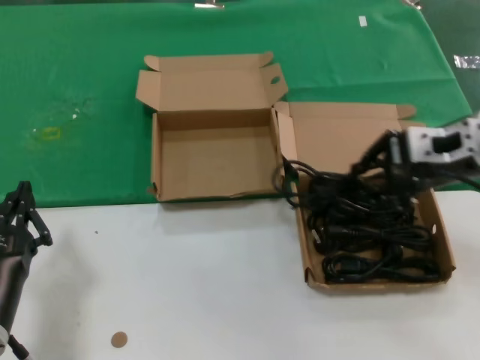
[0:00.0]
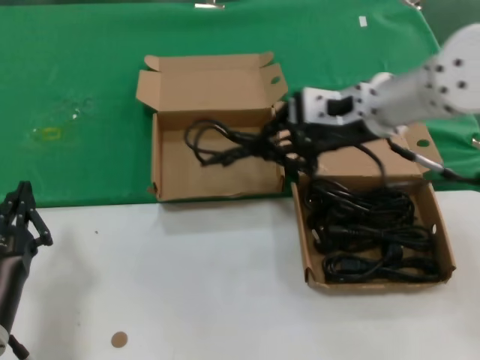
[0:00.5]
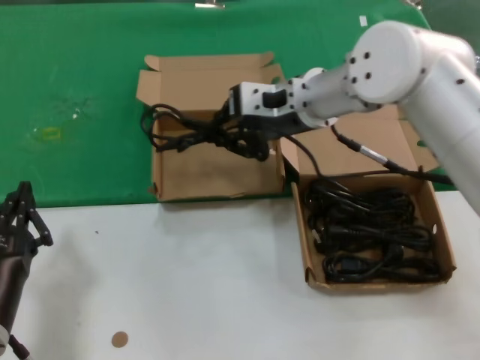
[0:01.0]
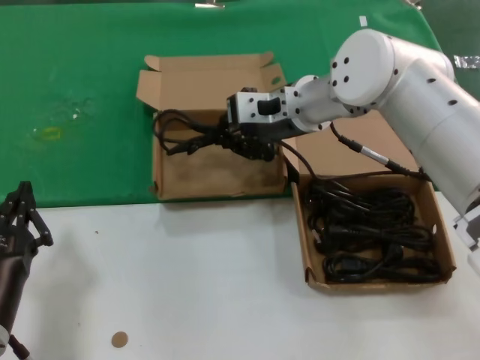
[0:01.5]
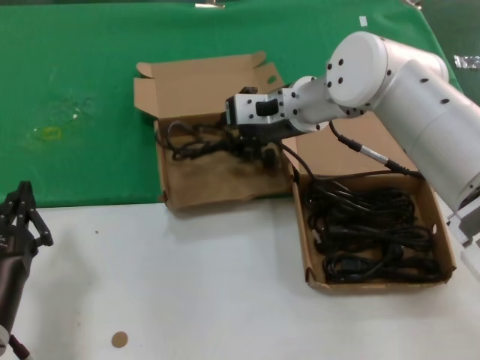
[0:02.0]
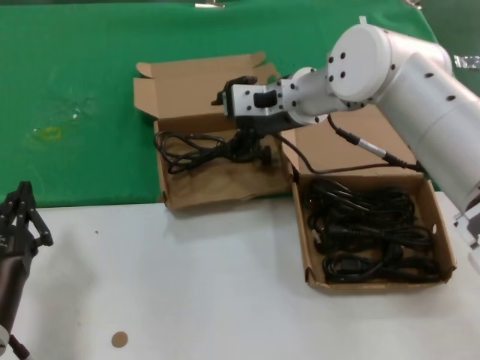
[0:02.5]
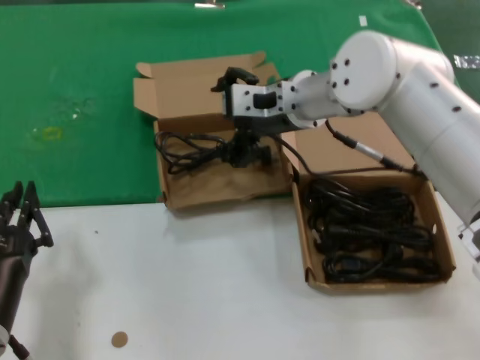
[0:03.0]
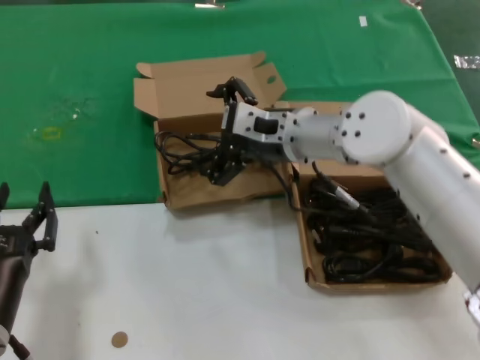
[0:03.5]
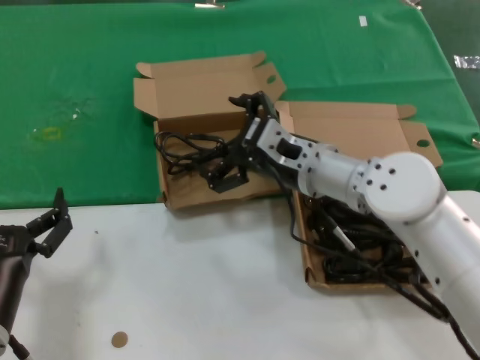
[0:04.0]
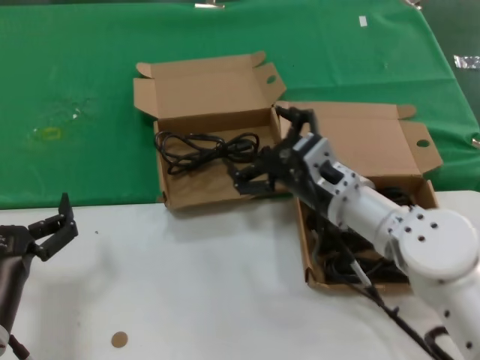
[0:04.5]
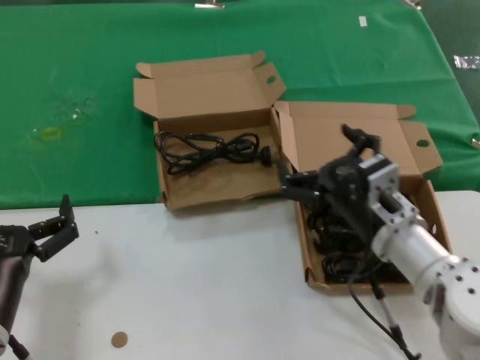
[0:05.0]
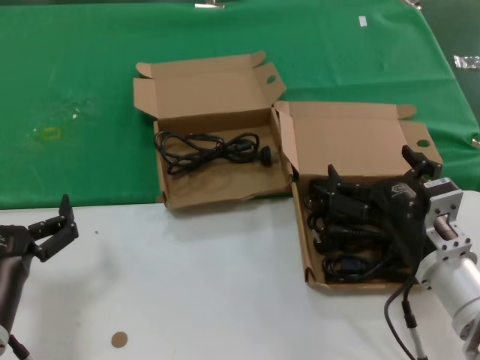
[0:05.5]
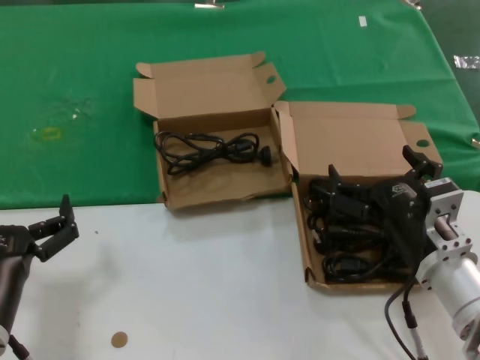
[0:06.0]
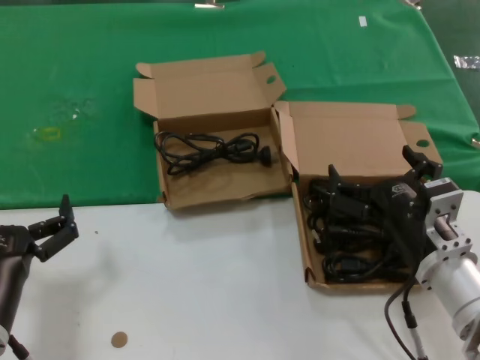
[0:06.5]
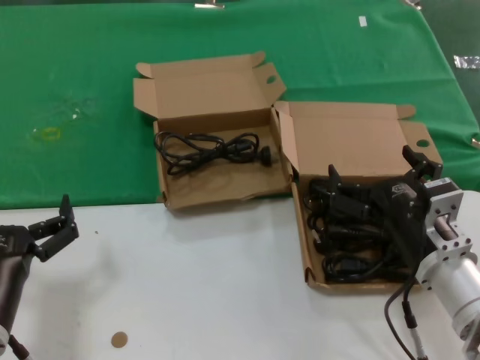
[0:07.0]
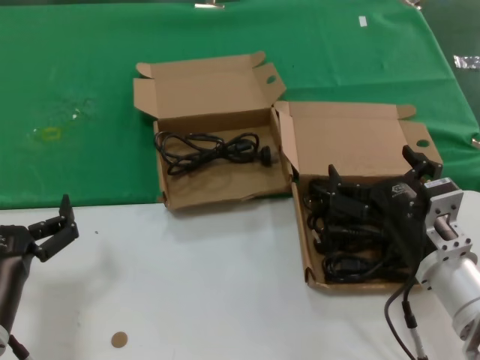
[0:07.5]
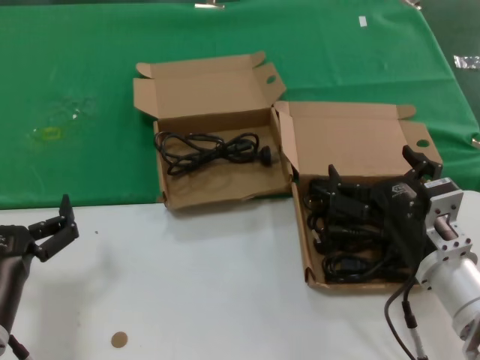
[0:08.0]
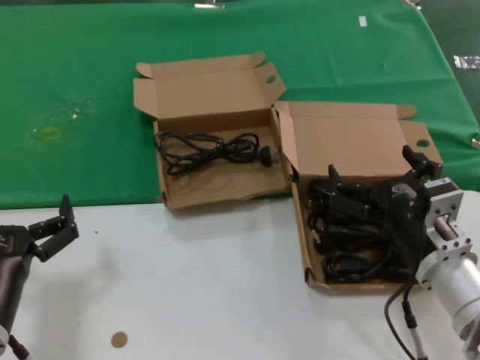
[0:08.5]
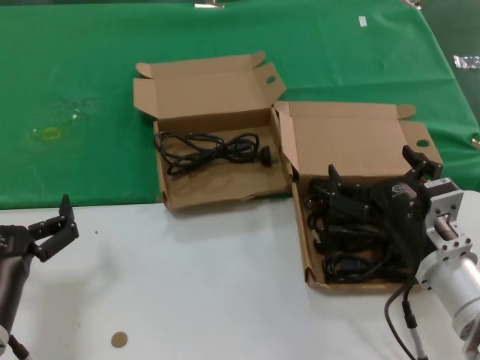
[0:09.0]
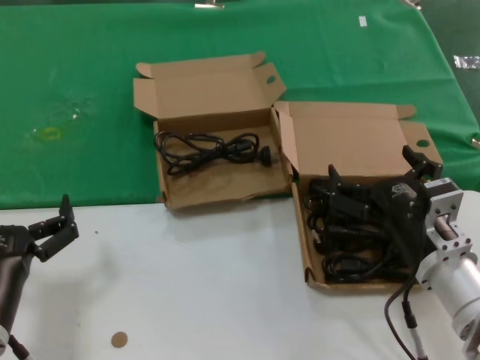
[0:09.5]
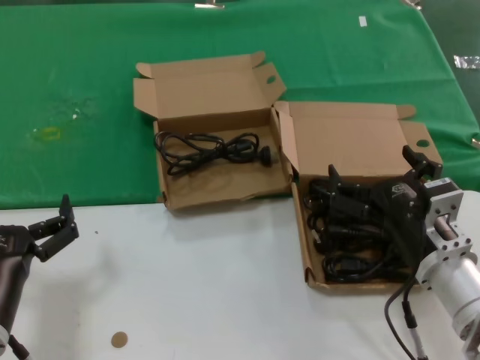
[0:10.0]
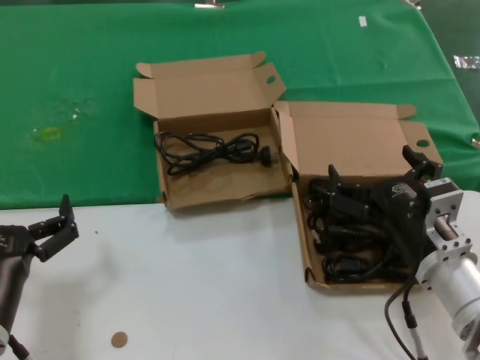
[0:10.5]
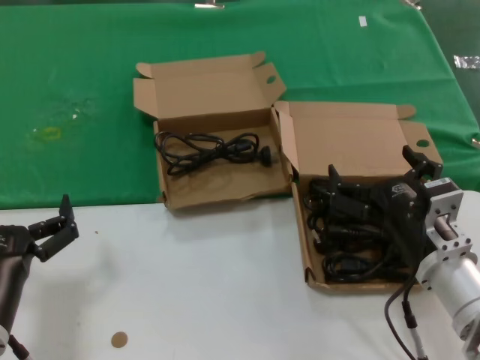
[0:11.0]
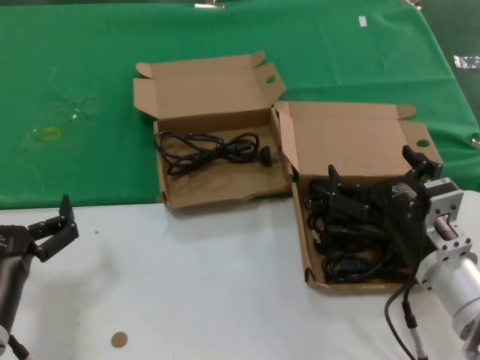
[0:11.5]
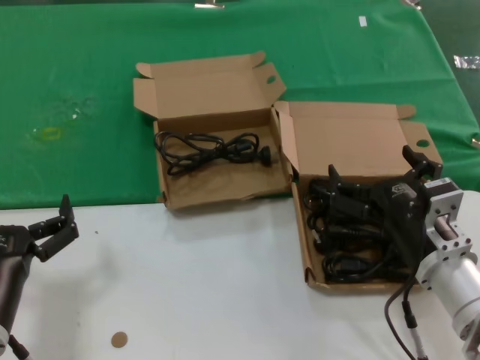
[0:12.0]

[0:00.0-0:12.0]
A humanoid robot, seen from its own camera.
Task of the whole recording: take the parts from the box containing them and put them into an empty box.
Step, 0:00.0 to 0:02.5: Place the data cable in the another box.
0:00.0 to 0:02.0: The right hand travels to the left and forward by some 25 cm.
0:02.0 to 0:04.0: The right hand heads downward and backward, covering approximately 10 cm.
0:04.0 to 0:06.0: The right hand travels backward, to the right and downward by about 20 cm.
0:06.0 to 0:12.0: Neither hand changes place.

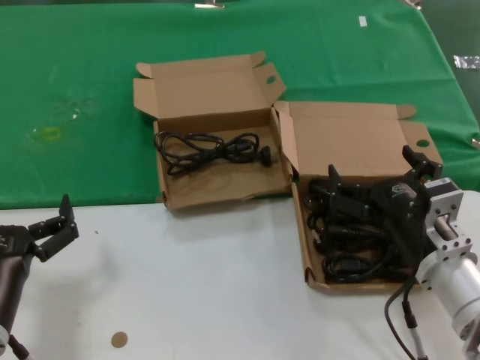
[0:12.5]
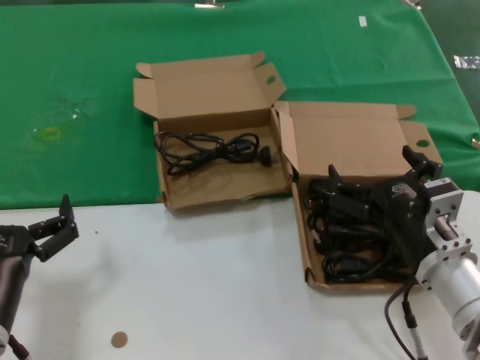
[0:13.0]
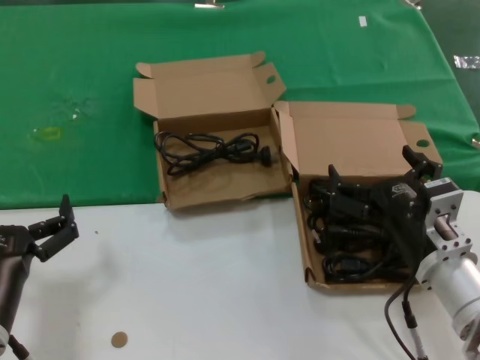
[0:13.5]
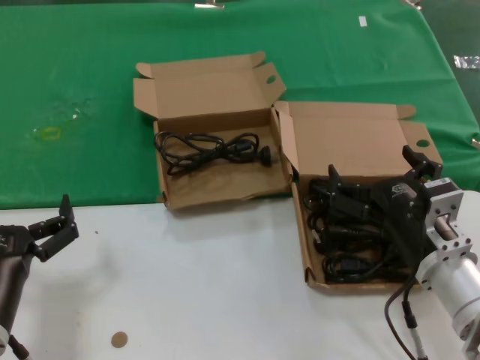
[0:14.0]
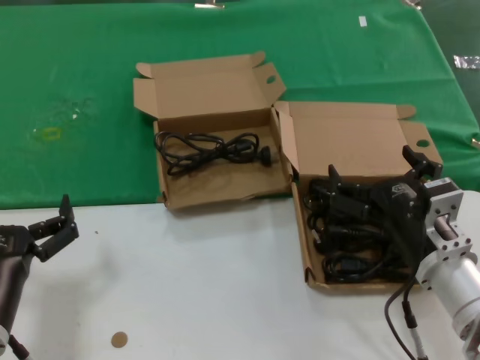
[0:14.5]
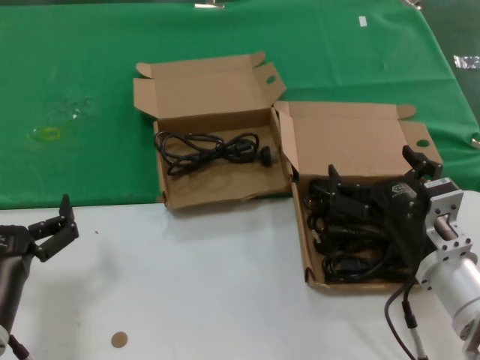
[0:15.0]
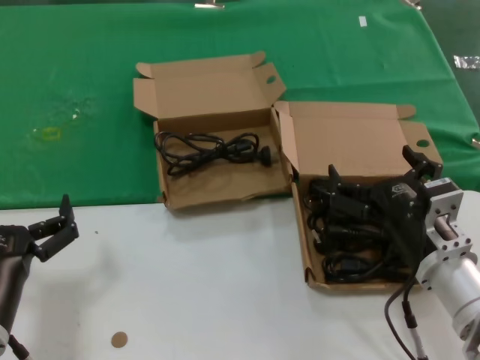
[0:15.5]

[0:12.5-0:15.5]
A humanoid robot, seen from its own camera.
Task of the whole recording: take the parts from the box containing them and put them into an empty box.
0:12.5 to 0:15.5: Both hands stay about where they are.

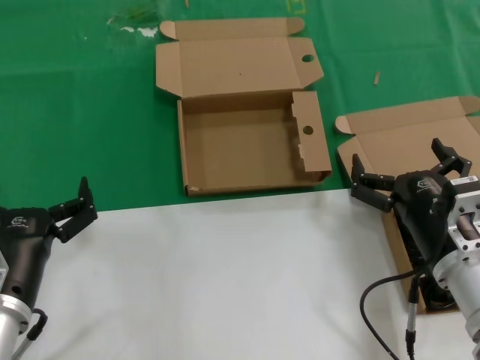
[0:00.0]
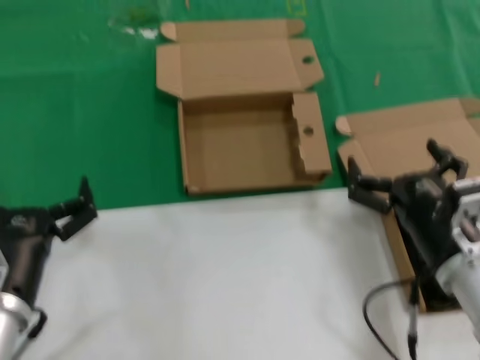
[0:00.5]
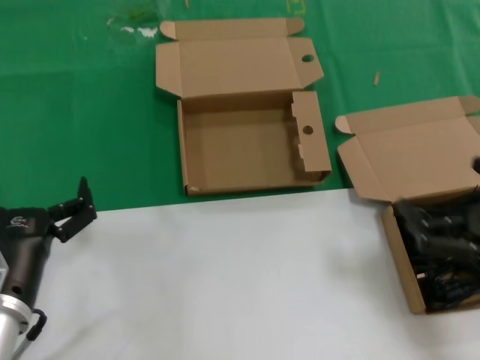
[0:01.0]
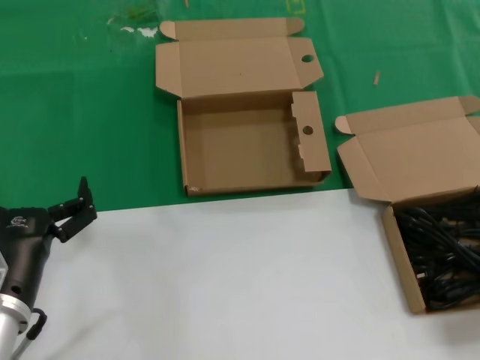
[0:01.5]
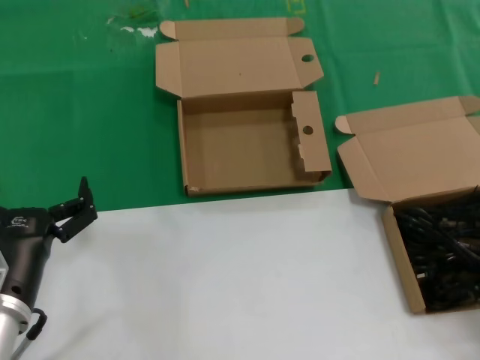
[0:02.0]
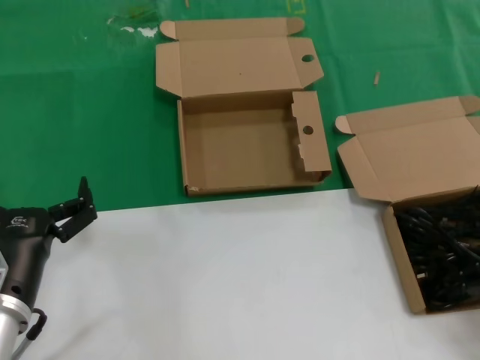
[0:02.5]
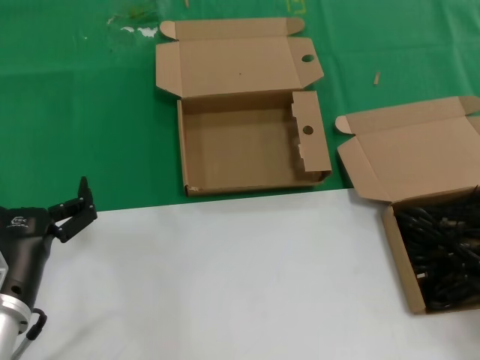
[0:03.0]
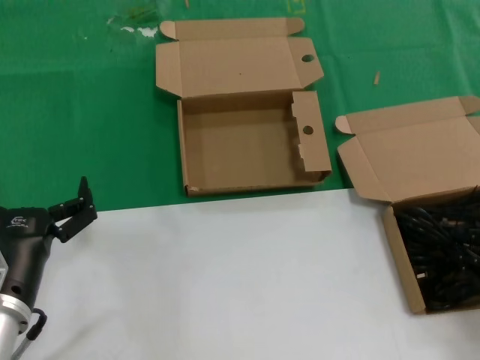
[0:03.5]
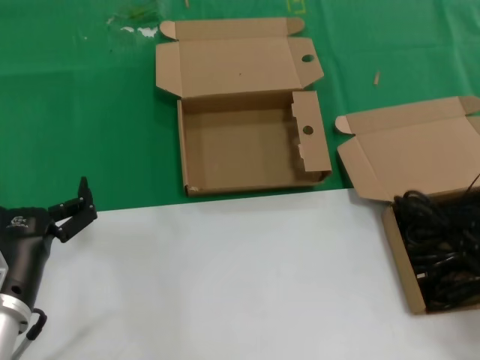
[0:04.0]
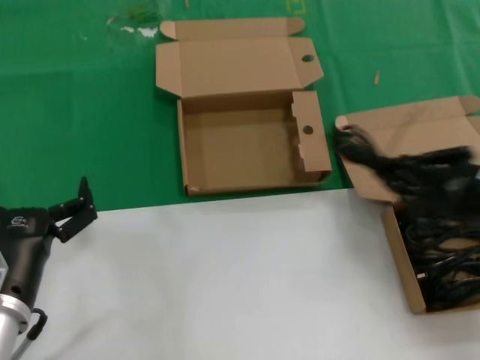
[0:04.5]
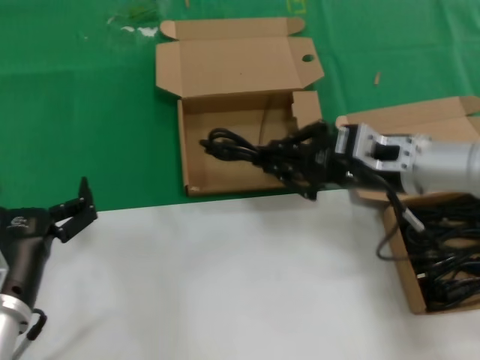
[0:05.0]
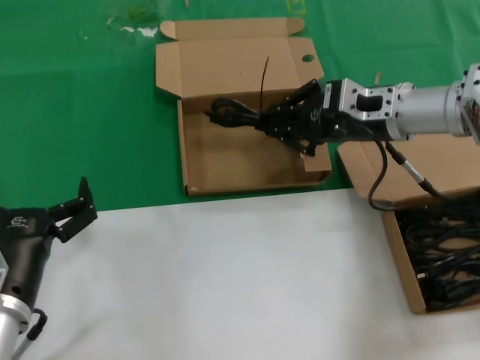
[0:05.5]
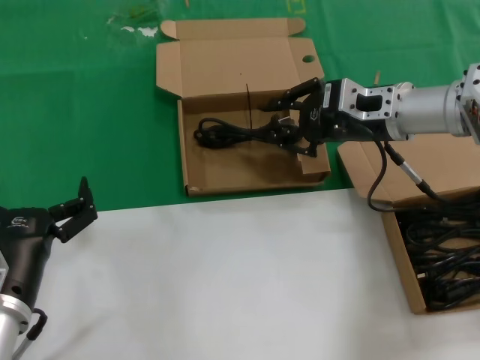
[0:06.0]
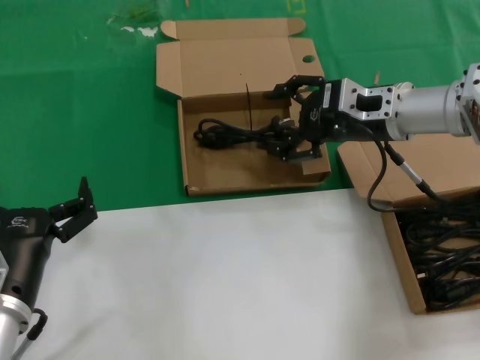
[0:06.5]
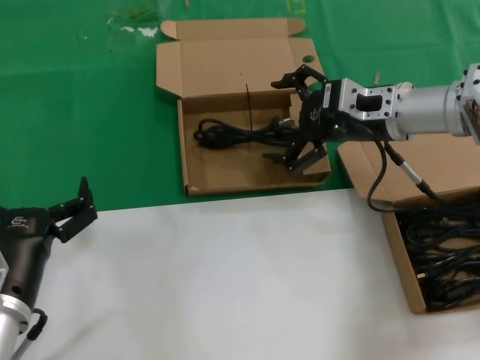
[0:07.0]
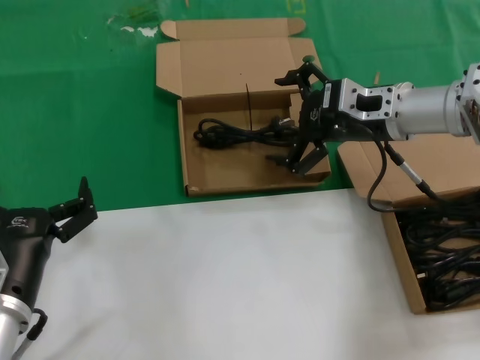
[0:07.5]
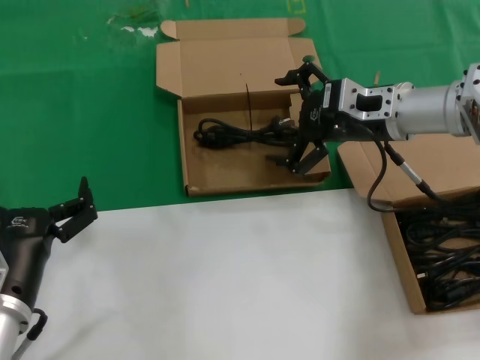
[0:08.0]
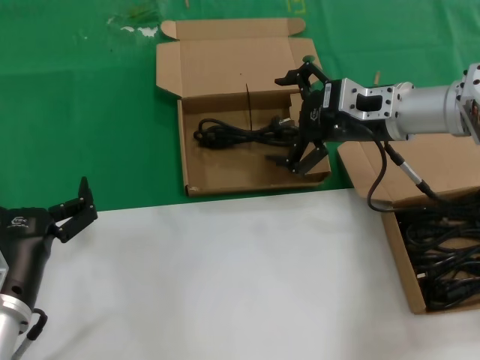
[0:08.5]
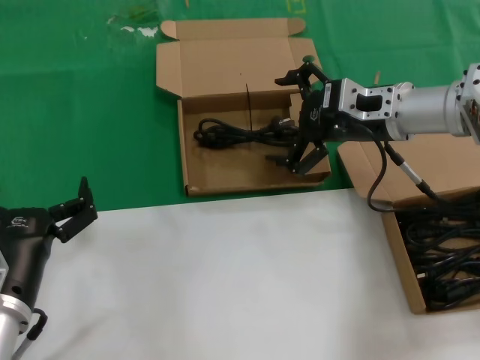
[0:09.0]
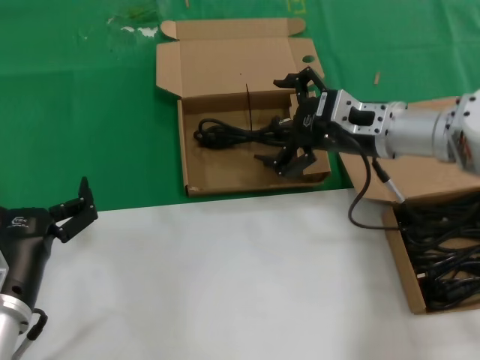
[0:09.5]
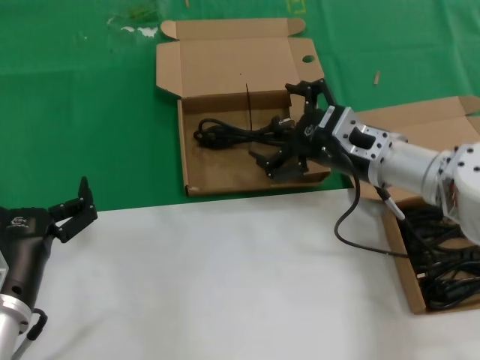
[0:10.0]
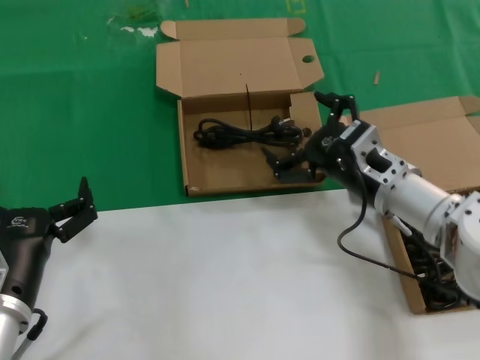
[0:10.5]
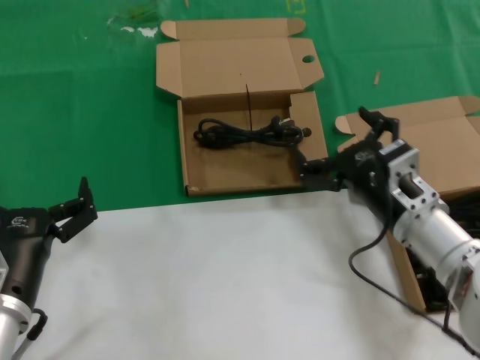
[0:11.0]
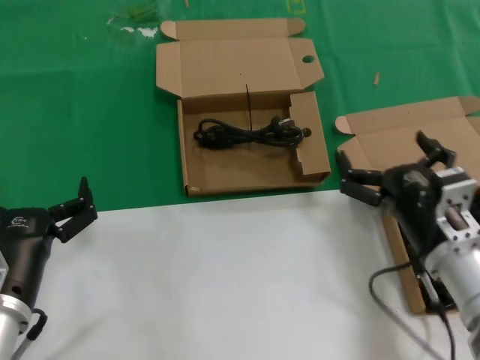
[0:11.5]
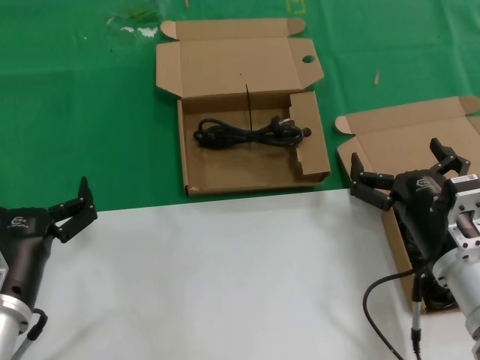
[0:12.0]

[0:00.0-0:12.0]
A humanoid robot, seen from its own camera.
Task of the whole recording: take the parts from the box containing them and put them into an empty box.
Step, 0:00.0 to 0:03.5: Grasp the data cable.
Step, 0:04.5 to 0:07.5: Place the data cable in the another box.
0:00.0 to 0:02.0: The right hand is displaced to the right by approximately 20 cm.
0:04.0 to 0:06.0: The right hand is displaced forward and to the left by about 30 cm.
0:06.0 to 0:08.0: The two hands keep their place.
0:08.0 to 0:10.0: The right hand moves downward, about 5 cm.
0:10.0 to 0:12.0: The right hand moves backward and downward, some 15 cm.
